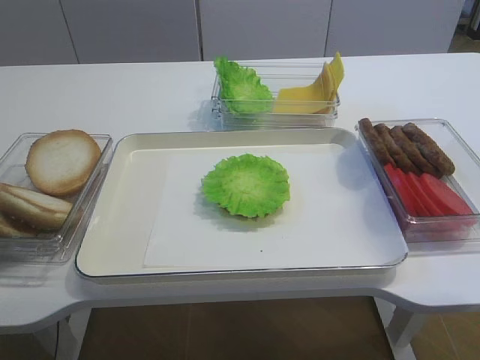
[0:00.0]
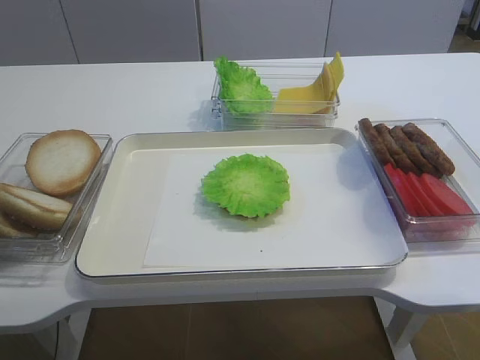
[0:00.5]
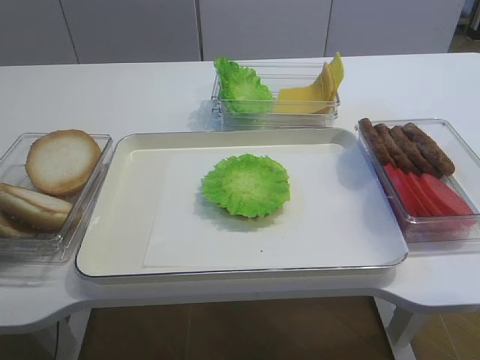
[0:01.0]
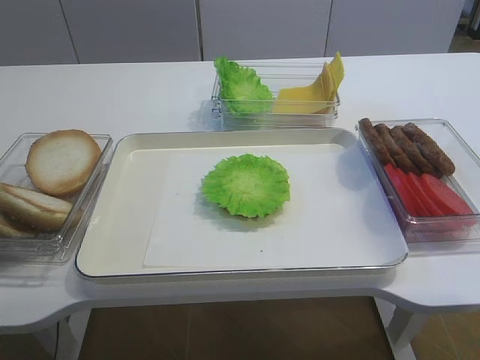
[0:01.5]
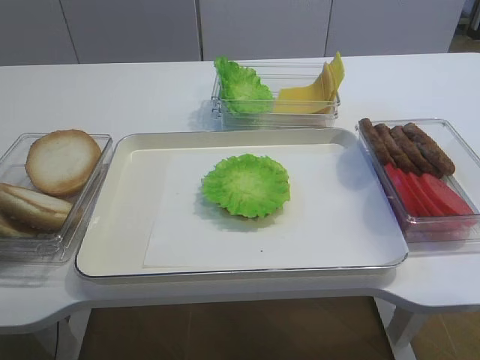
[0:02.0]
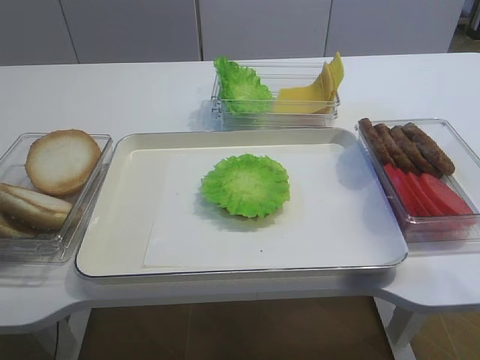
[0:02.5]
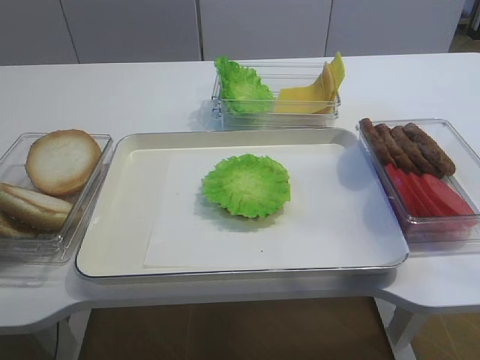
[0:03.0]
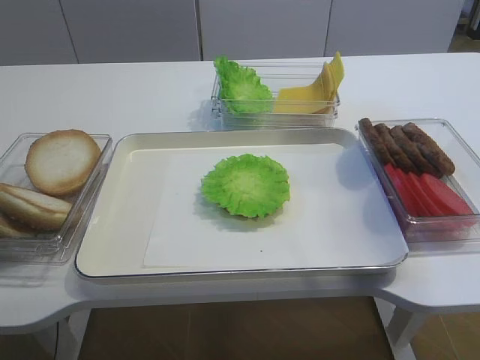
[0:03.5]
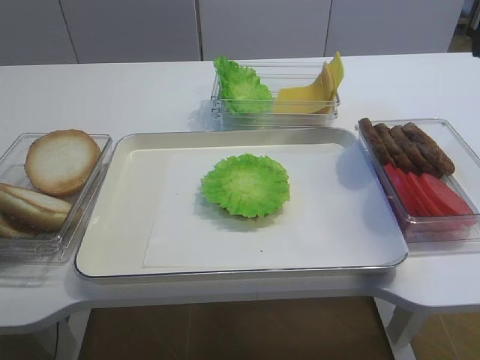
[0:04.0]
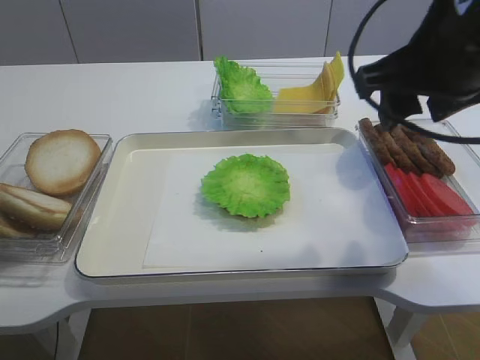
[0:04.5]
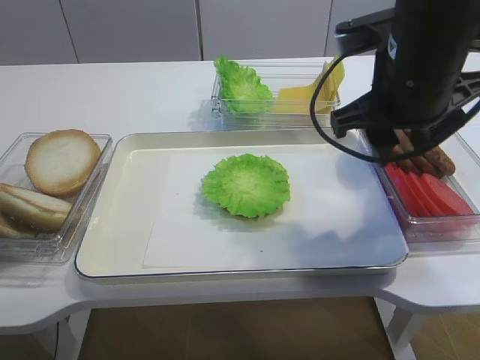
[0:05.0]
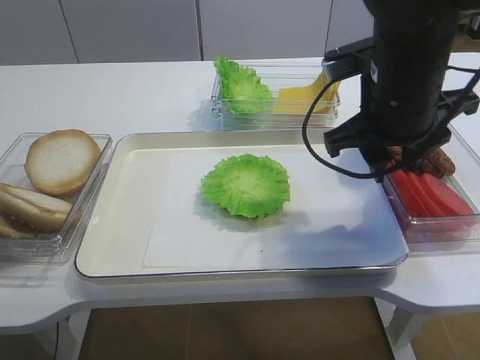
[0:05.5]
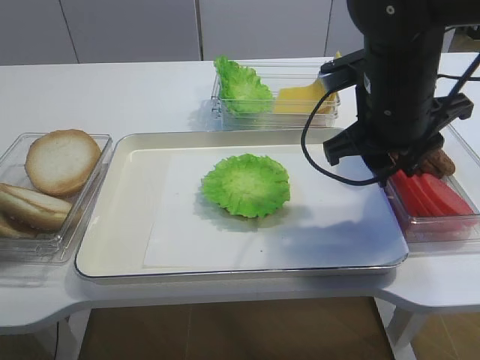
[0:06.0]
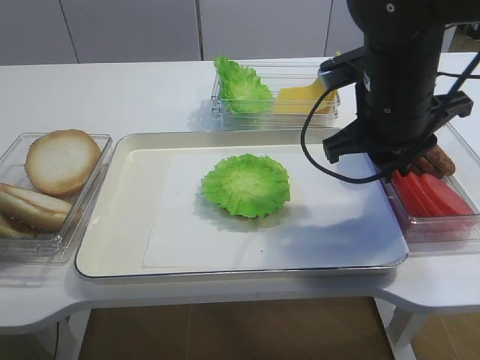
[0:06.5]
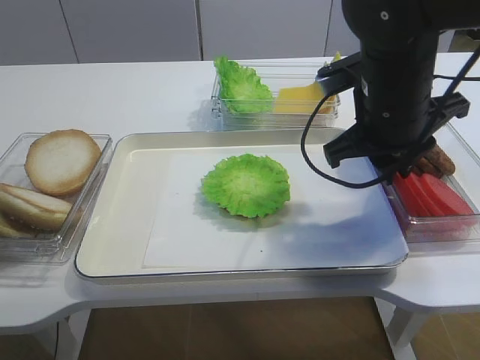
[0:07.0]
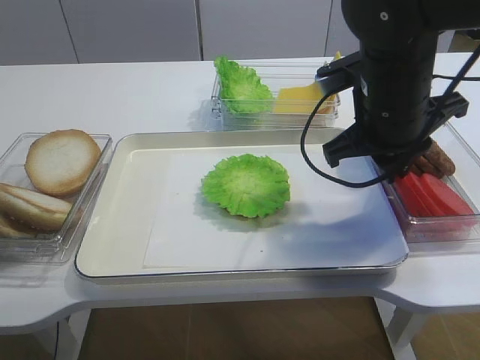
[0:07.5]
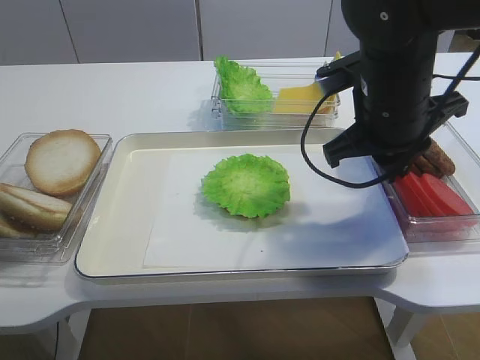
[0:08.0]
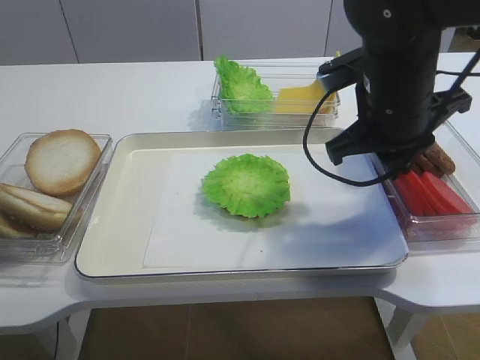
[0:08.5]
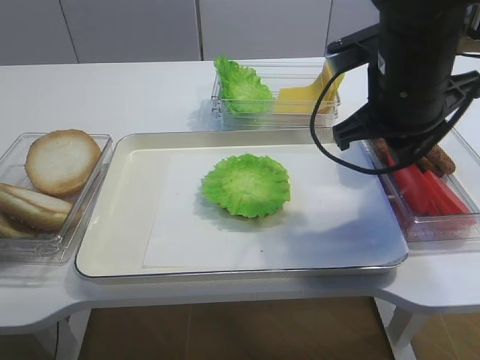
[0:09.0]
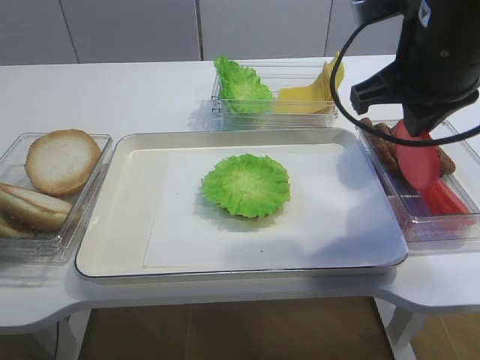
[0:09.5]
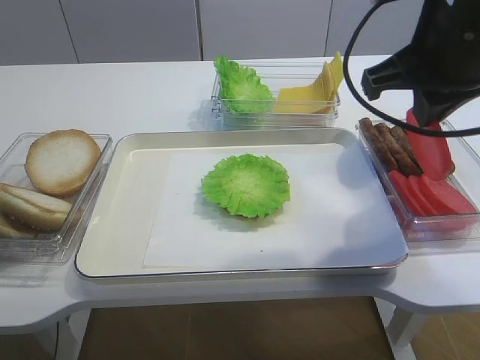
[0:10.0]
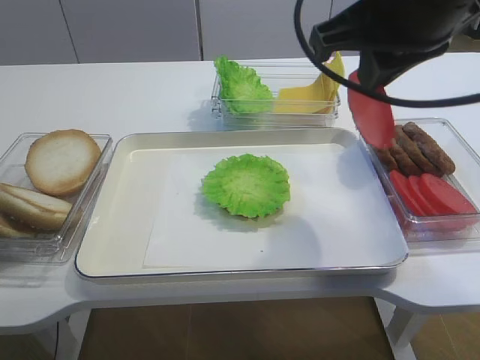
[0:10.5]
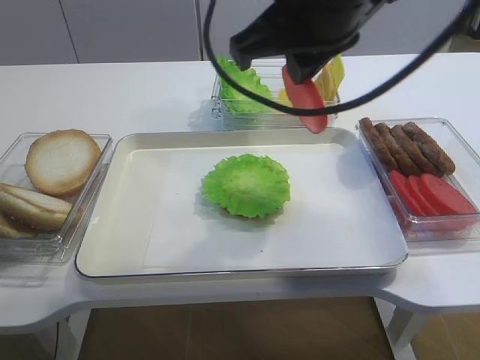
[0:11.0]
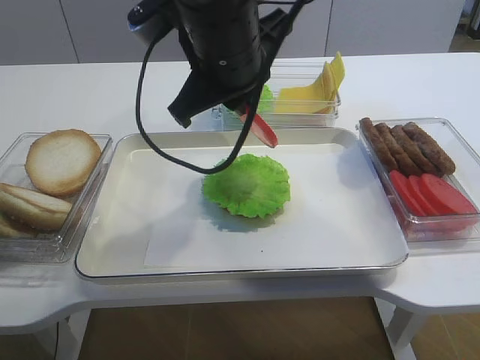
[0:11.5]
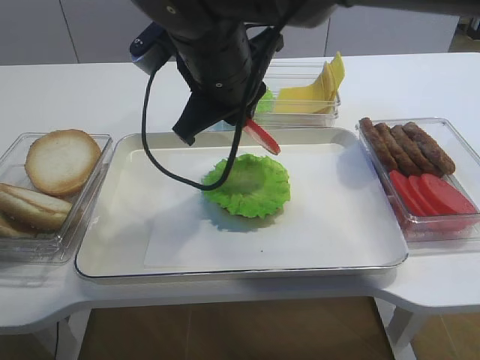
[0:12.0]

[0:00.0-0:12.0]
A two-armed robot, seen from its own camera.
Step, 0:00.0 to 0:09.5: Pick up the tomato slice with the right gripper.
0:02.0 to 0:04.0: The right gripper travels forward and upward by approximately 25 cm.
0:04.0 to 0:06.0: The right gripper is displaced downward, to the left and forward by roughly 20 cm.
0:06.0 to 0:08.0: The right gripper closes its fingers.
0:08.0 to 0:10.0: The right gripper is displaced upward by about 10 cm.
0:10.0 to 0:12.0: The right gripper shifts roughly 20 cm to the left.

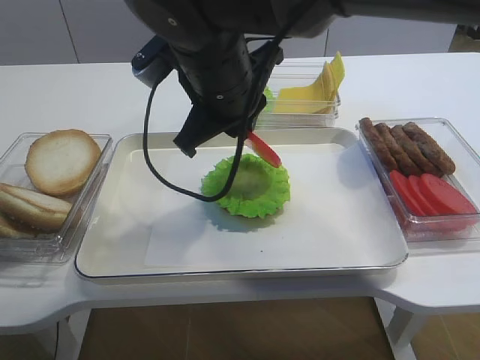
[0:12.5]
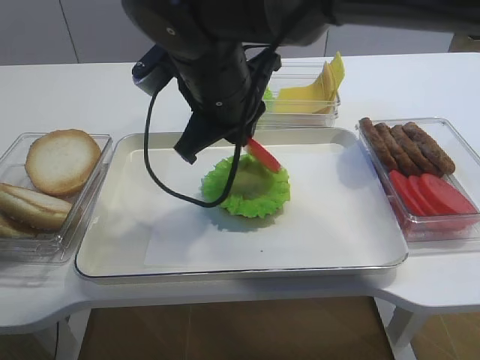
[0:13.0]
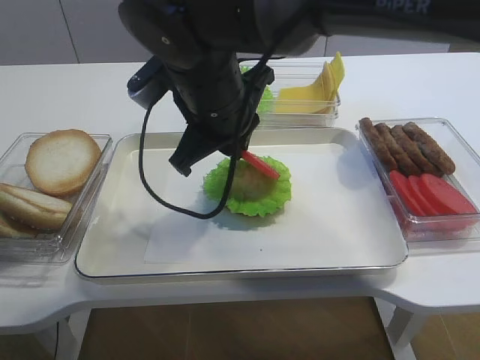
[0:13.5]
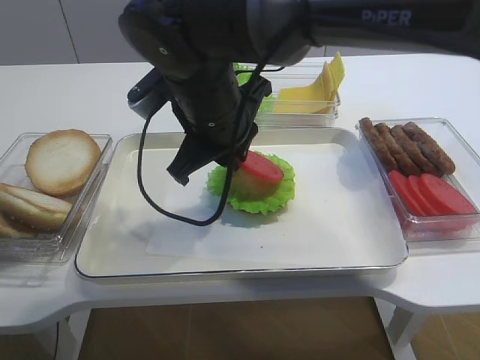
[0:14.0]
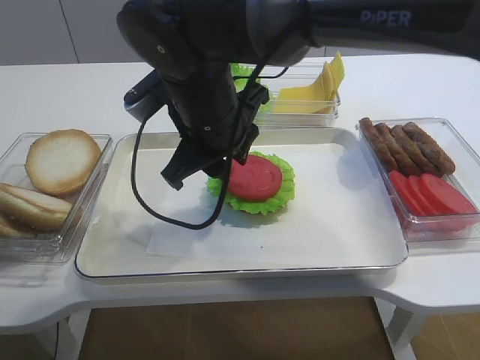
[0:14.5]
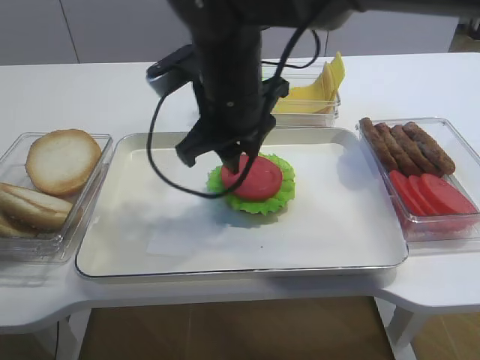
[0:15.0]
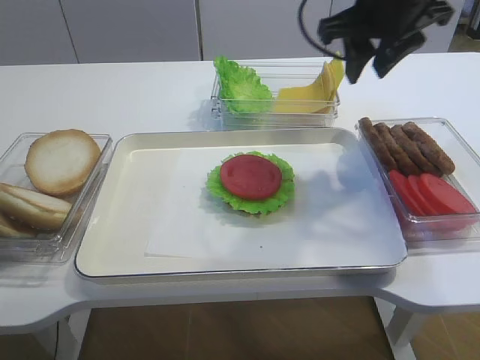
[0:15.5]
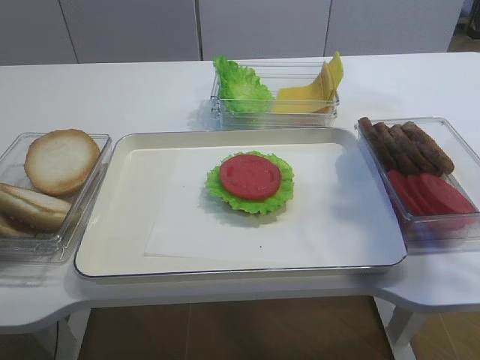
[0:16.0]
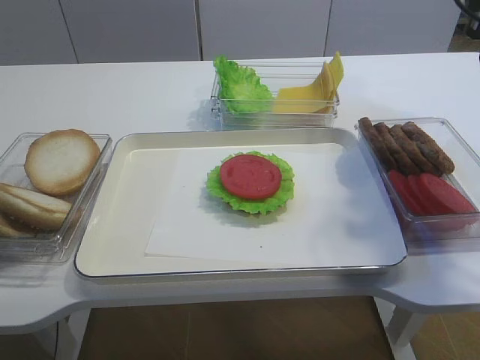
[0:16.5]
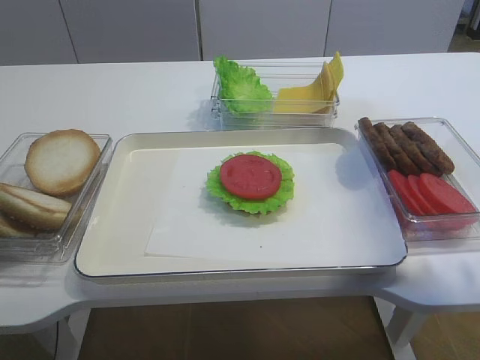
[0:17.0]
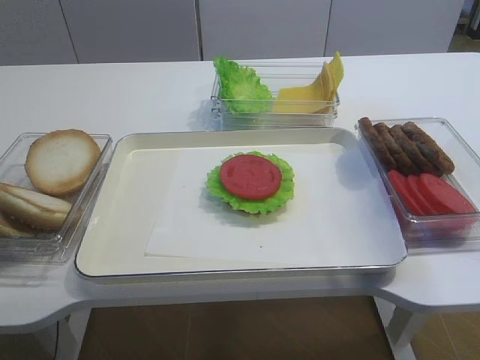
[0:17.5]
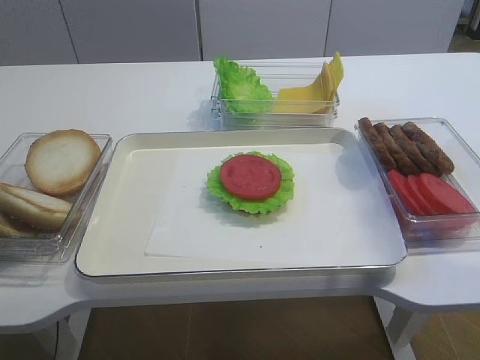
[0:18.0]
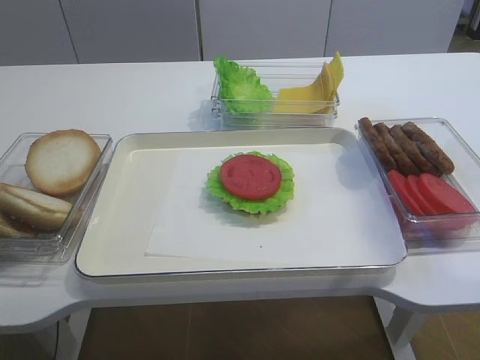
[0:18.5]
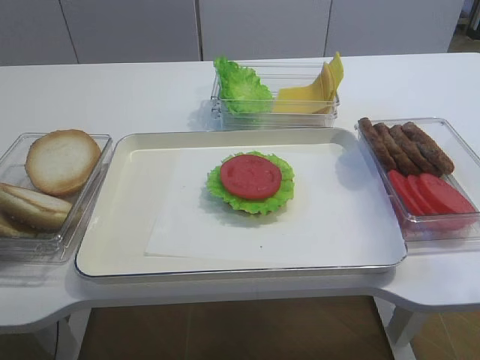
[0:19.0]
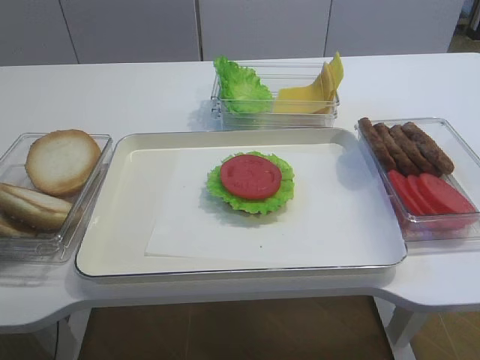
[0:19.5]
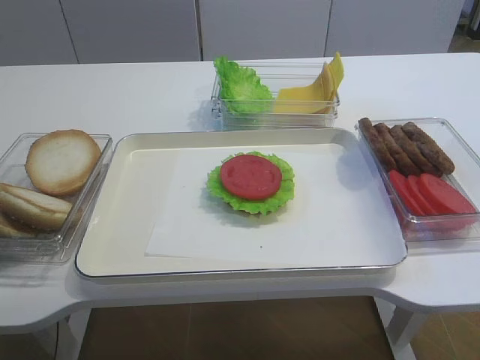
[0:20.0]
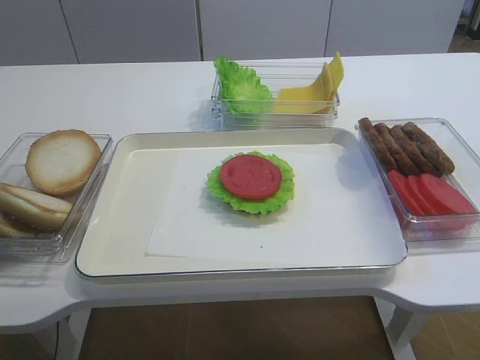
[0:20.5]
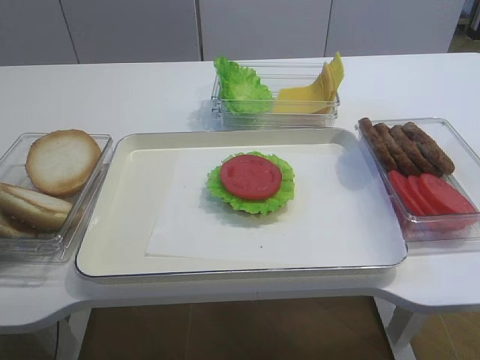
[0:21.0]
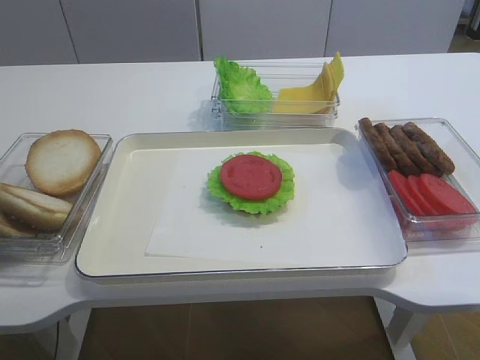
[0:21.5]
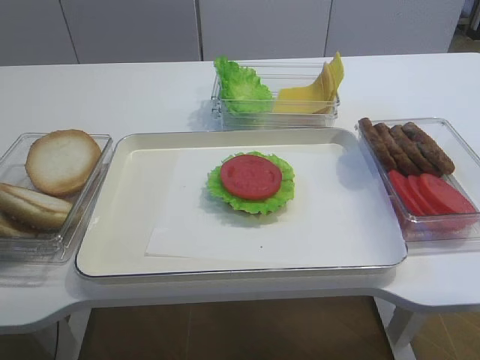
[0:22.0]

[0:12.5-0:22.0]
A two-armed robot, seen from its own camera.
Step, 0:12.5 to 0:14.5: Place the tomato slice on the lettuce leaf with the right gripper.
0:12.5 to 0:14.5: The right gripper opens.
0:14.5 to 0:16.5: The right gripper moves to the right, approximately 30 cm.
0:16.5 to 0:18.0: The right gripper is displaced backward by approximately 30 cm.
0:18.0 to 0:20.0: The right gripper is displaced backward by some 10 cm.

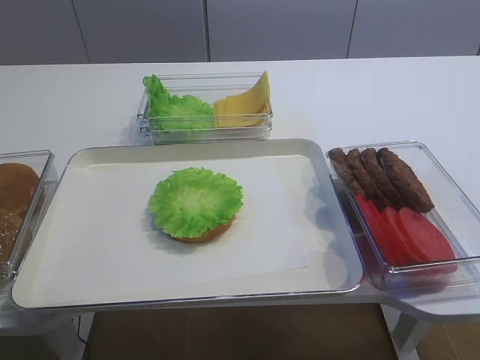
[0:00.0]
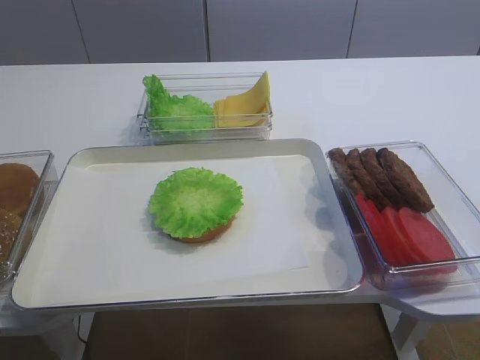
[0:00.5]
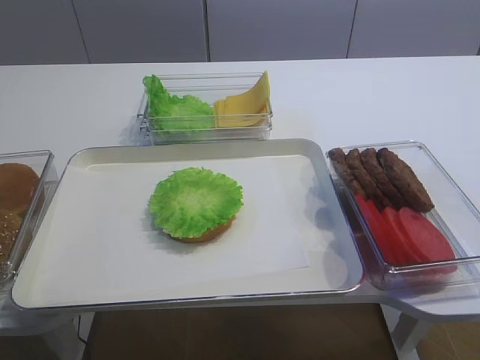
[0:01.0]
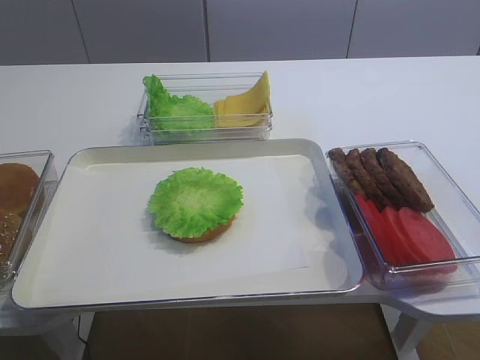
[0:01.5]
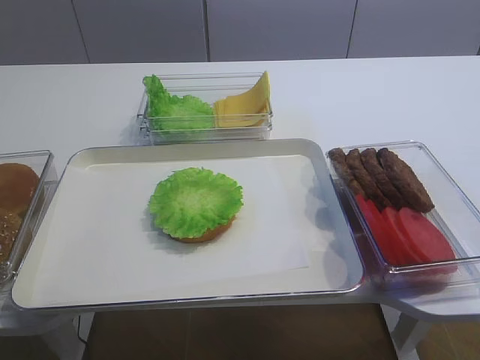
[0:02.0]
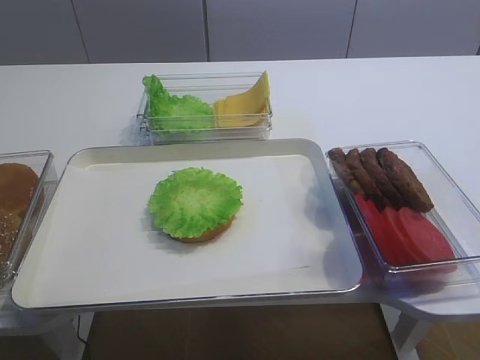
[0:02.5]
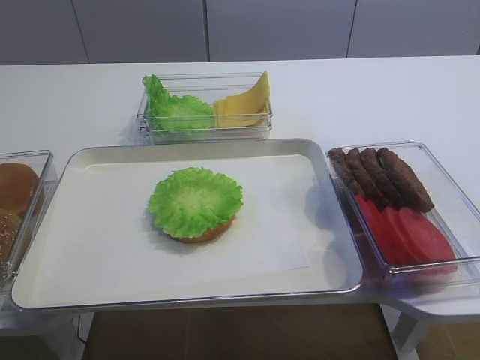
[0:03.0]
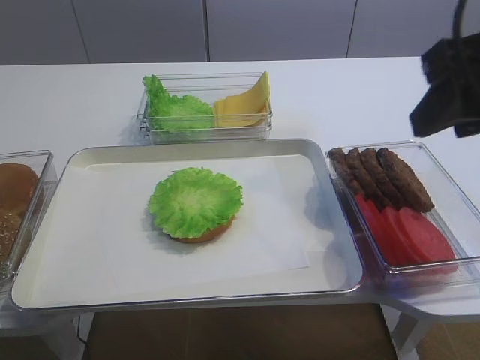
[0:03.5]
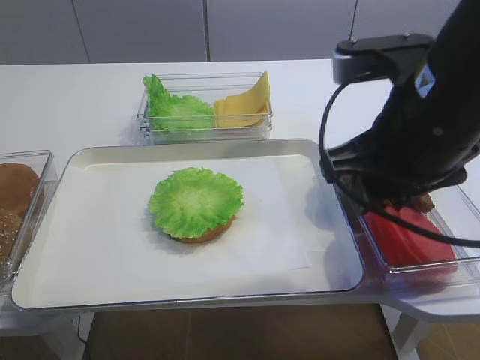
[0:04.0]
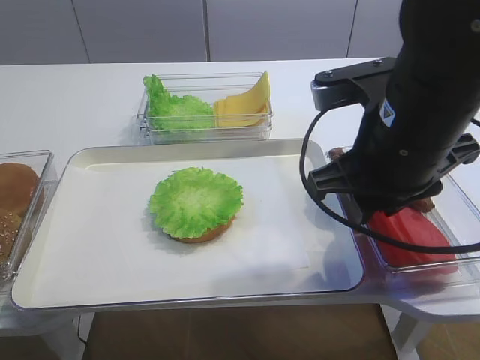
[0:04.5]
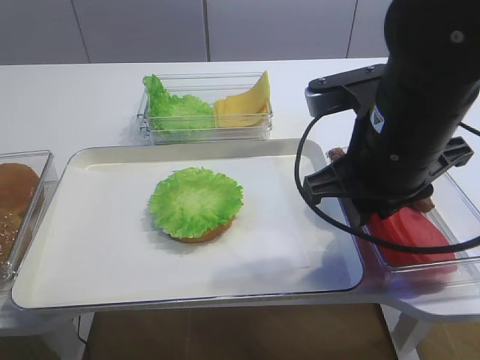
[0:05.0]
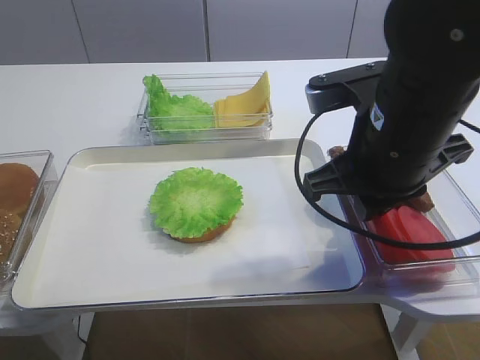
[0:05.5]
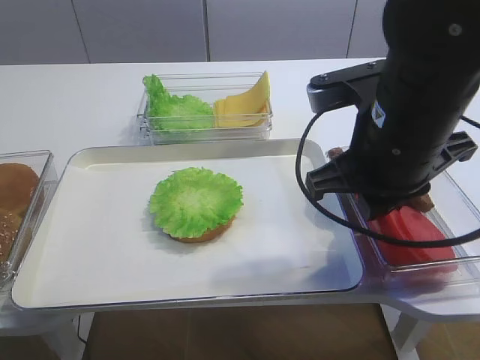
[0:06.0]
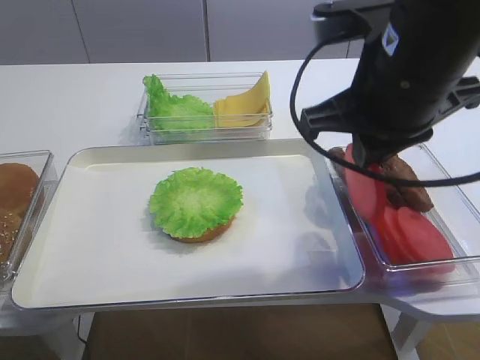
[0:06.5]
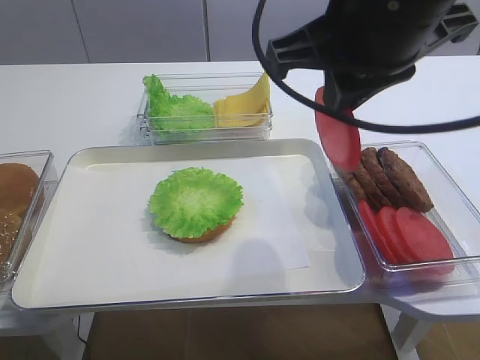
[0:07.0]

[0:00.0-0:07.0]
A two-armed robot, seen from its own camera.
Step, 0:00.0 to 0:06.5: Pick up the tomato slice with the right gripper.
0:02.0 to 0:03.5: The right gripper heads forward, covering approximately 20 cm.
0:03.5 to 0:05.0: The right gripper moves downward and to the left, some 10 cm, and closes up.
0:05.0 to 0:07.0: The right gripper is displaced upward by roughly 10 cm, and closes.
